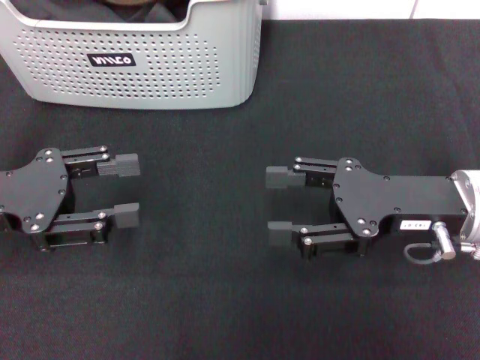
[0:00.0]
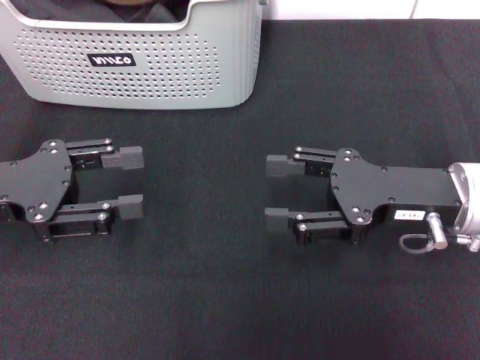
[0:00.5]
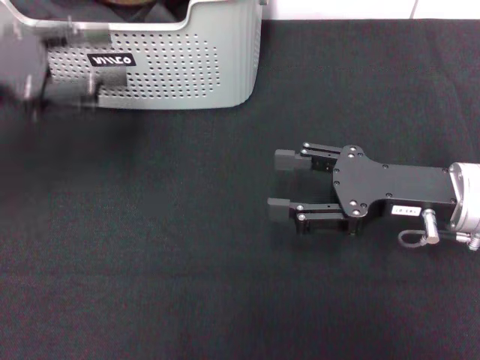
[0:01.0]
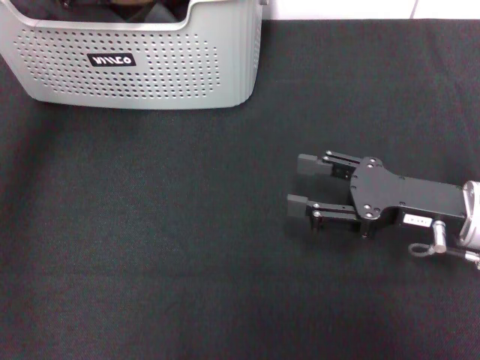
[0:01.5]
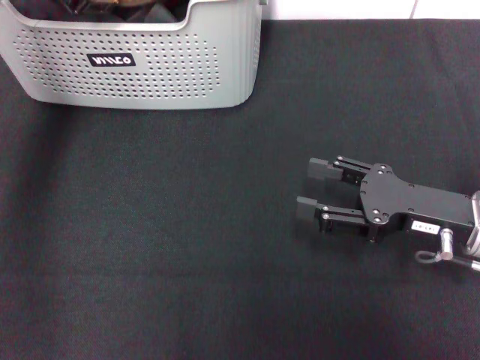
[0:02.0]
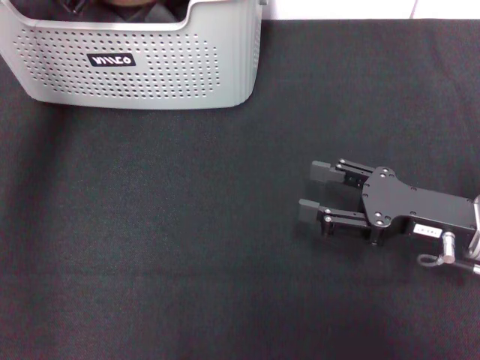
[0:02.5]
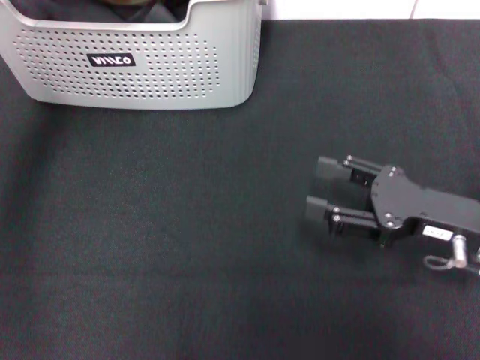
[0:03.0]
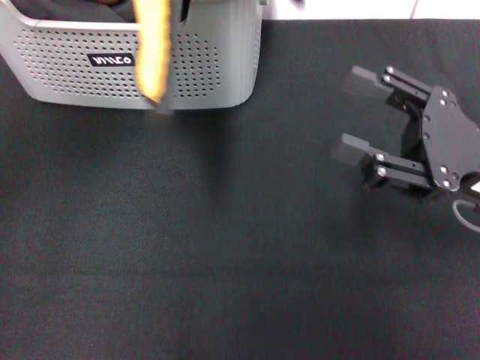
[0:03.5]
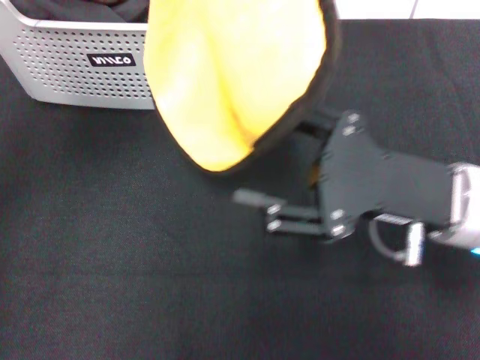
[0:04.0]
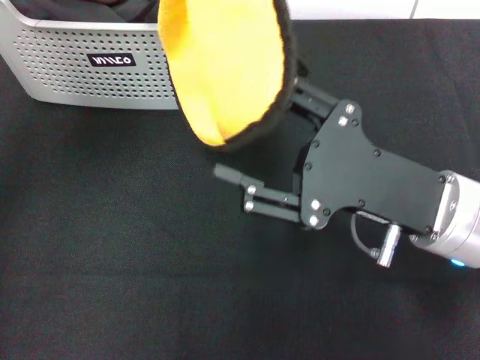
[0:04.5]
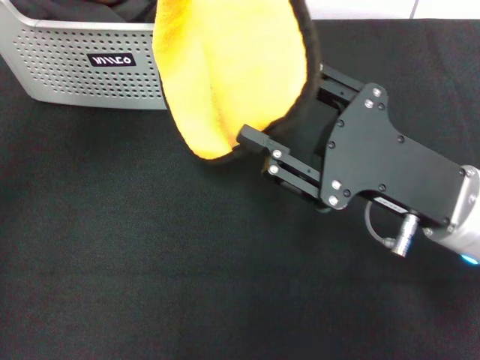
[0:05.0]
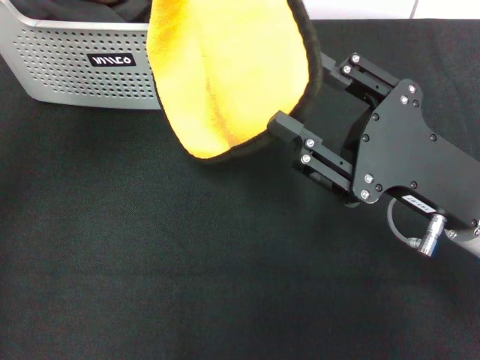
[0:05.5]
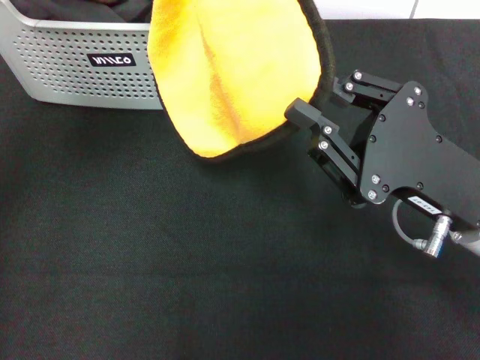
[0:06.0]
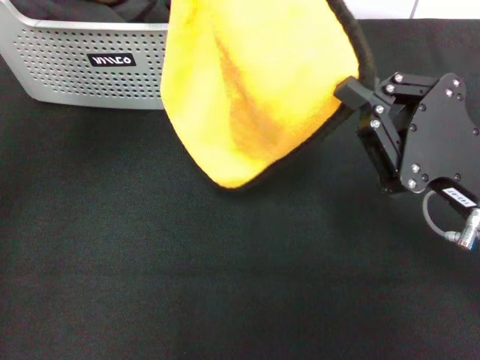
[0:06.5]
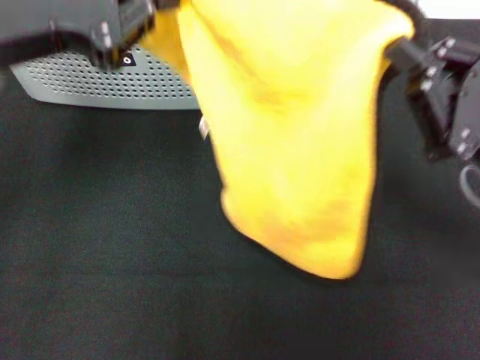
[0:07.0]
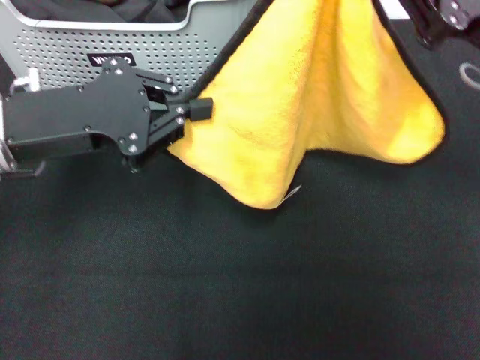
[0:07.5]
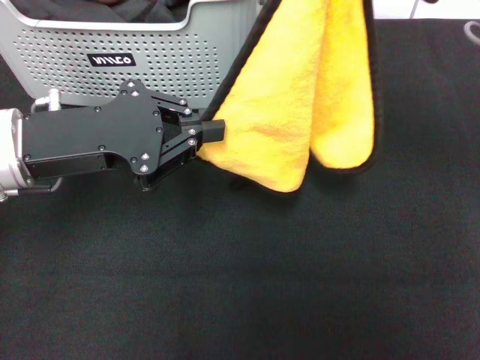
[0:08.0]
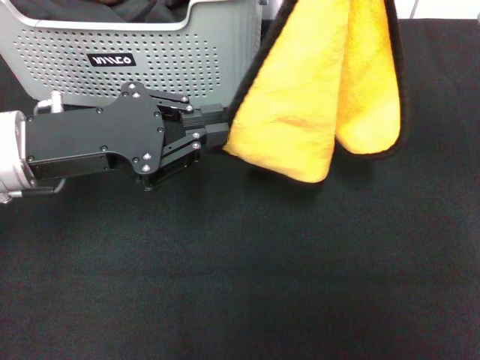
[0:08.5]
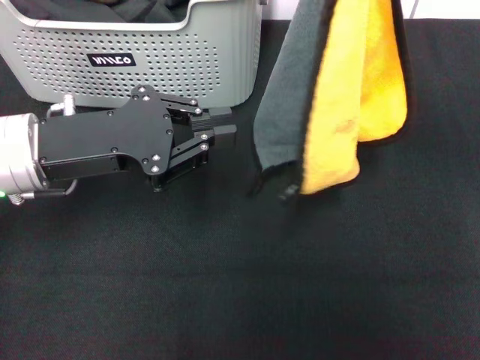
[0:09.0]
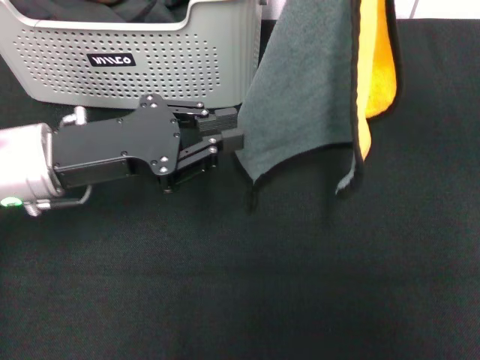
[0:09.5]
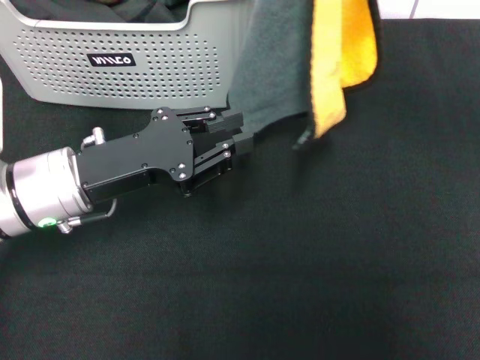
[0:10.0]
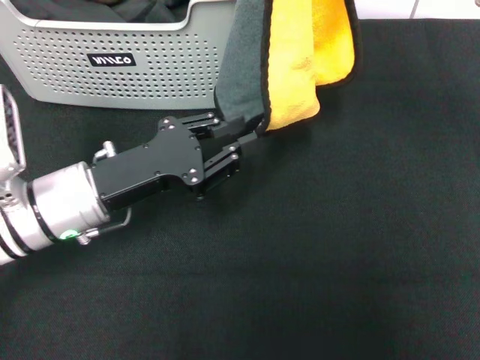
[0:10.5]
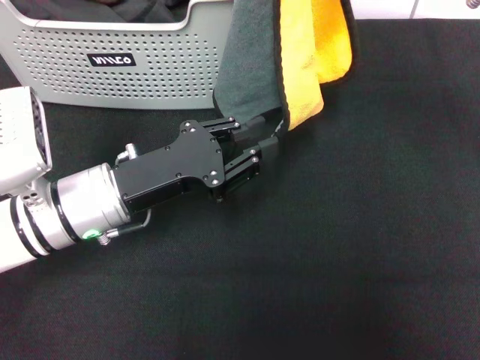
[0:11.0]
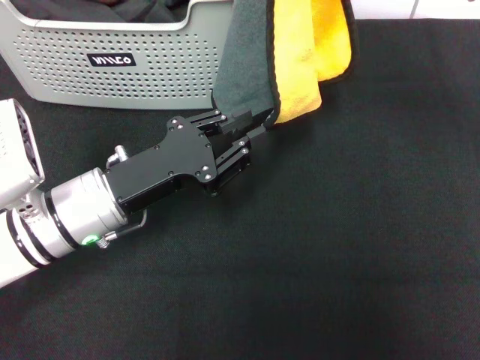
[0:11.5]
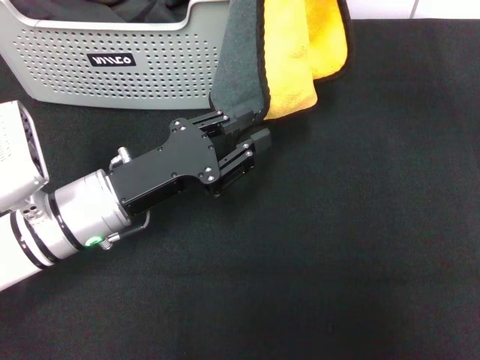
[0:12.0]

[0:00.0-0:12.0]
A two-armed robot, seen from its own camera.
Task of the whole recording: pick up the towel from the storage box and lay it flat on the black tablecloth.
Step, 0:00.0 to 0:02.5: Pick up a towel with the left gripper.
Step, 0:03.0 to 0:06.0: Spread the towel flat with the left gripper.
0:00.0 to 0:02.0: The left gripper travels forward, upward and to the right by some 20 cm. Meanwhile the right gripper moves some 5 cm.
0:02.0 to 0:04.0: The left gripper travels backward and upward by roughly 15 cm, and closes its fingers. The right gripper moves upward and to the left, roughly 10 cm.
0:04.0 to 0:06.0: The right gripper closes its fingers.
0:06.0 to 0:08.0: The right gripper is displaced upward and forward by approximately 15 cm, and closes up; the left gripper shifts approximately 15 cm downward.
0:08.0 to 0:10.0: The left gripper goes some 5 cm downward, and opens its fingers.

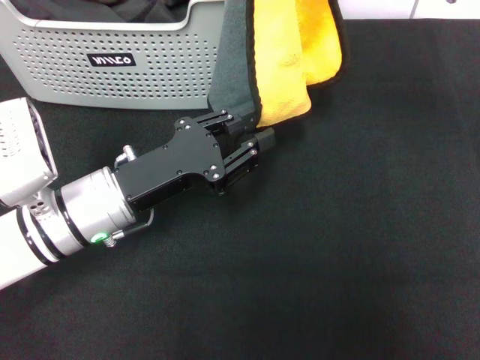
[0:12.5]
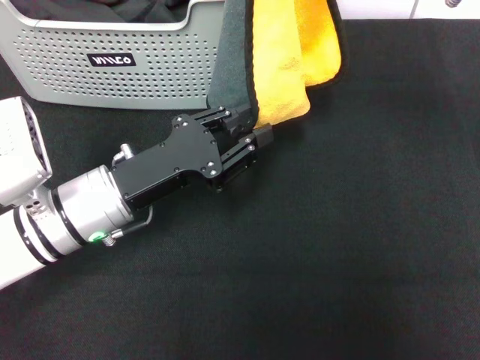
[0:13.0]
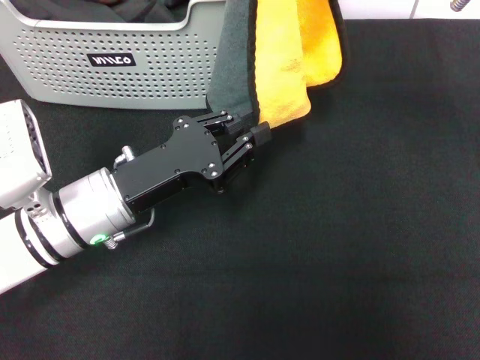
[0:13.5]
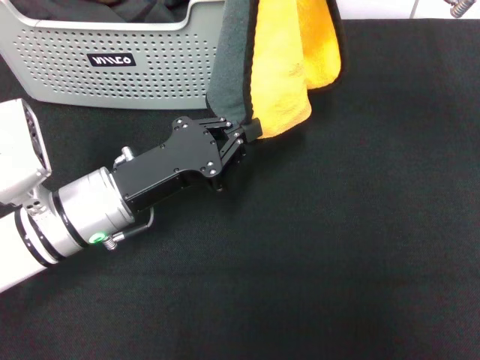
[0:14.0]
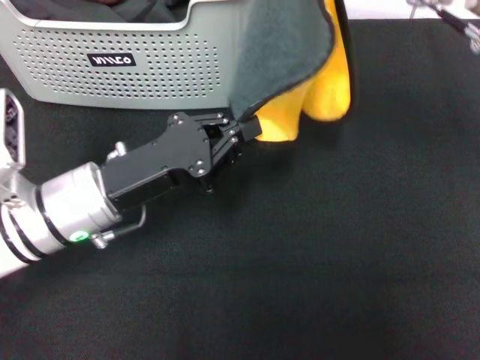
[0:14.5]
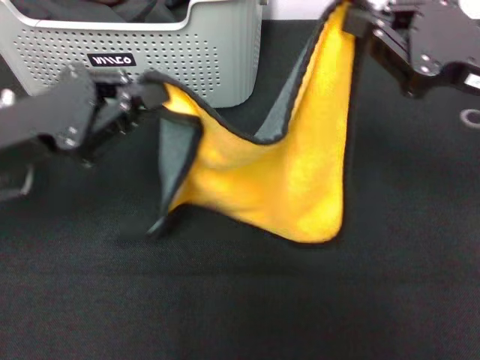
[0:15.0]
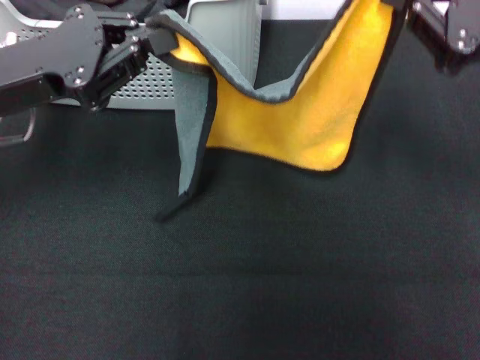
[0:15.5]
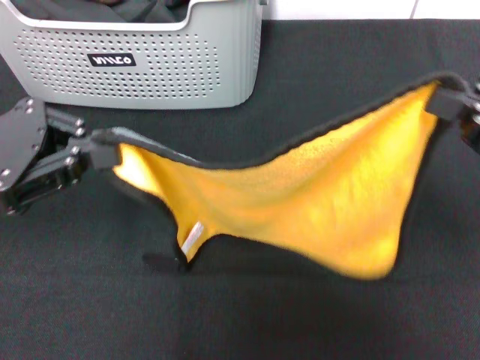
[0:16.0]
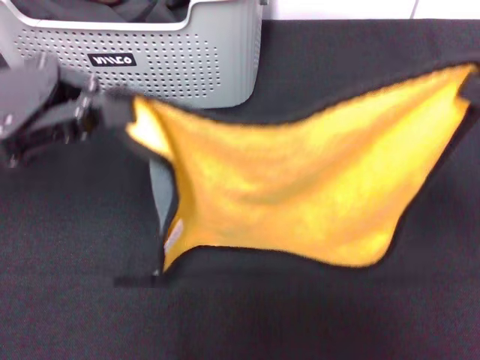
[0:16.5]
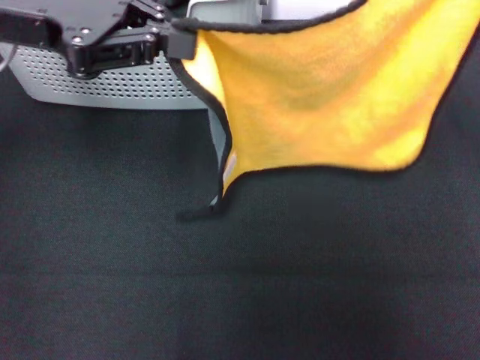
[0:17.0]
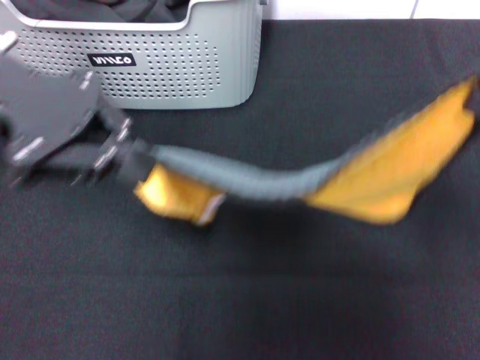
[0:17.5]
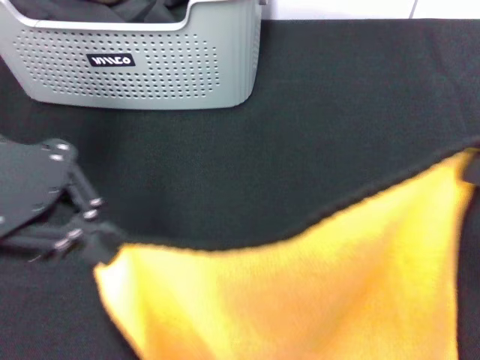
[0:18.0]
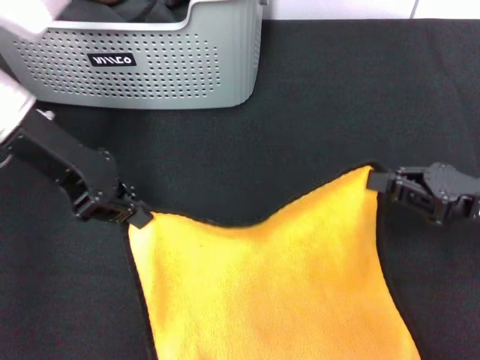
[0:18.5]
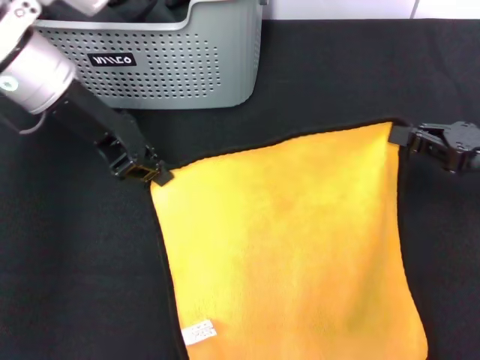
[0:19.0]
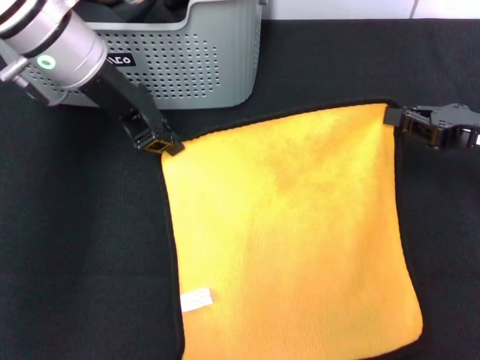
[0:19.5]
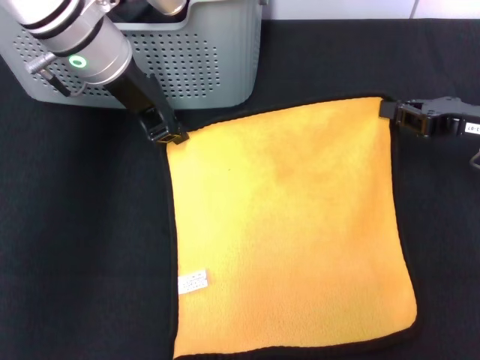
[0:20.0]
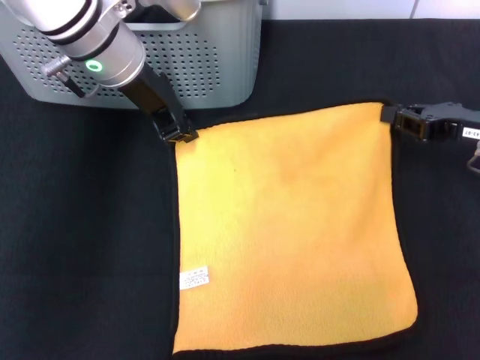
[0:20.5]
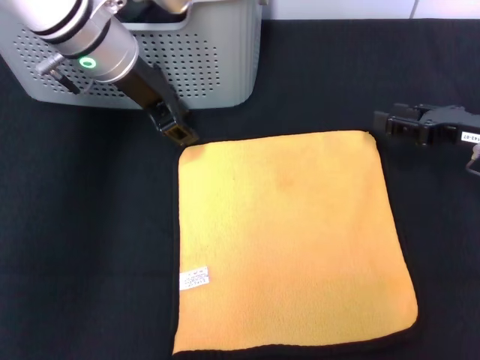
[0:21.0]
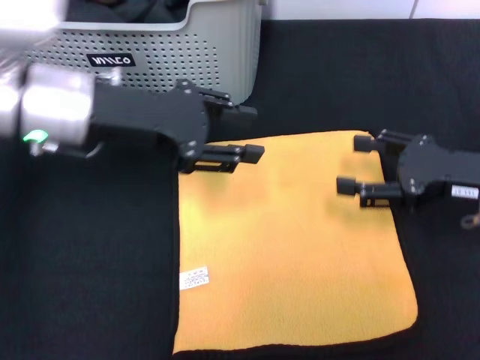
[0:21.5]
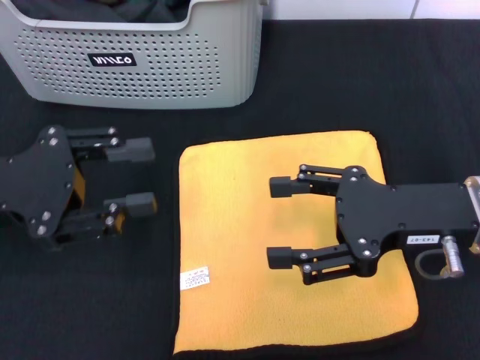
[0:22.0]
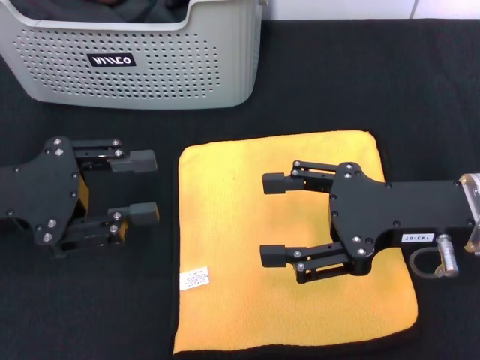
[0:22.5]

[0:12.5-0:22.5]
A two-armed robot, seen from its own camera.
Task of the whole recording: pick up the towel from the storage box and lay it flat on the black tablecloth.
Step, 0:12.5 to 0:20.5: Spread the towel flat with the right gripper.
0:12.5 to 0:14.5: The left gripper closes up.
0:14.5 to 0:16.5: The right gripper goes about 20 cm backward and to the right; the left gripper heads upward and to the left, covering roughly 15 cm.
0:16.5 to 0:18.5: The left gripper shifts approximately 5 cm forward; the right gripper travels downward and forward by about 15 cm.
0:18.5 to 0:20.5: The left gripper is displaced to the right and forward by about 10 cm. The right gripper is displaced forward by roughly 10 cm.
0:20.5 to 0:22.5: The left gripper goes roughly 20 cm backward and to the left, and opens, while the right gripper goes approximately 15 cm backward and to the left, and opens up.
